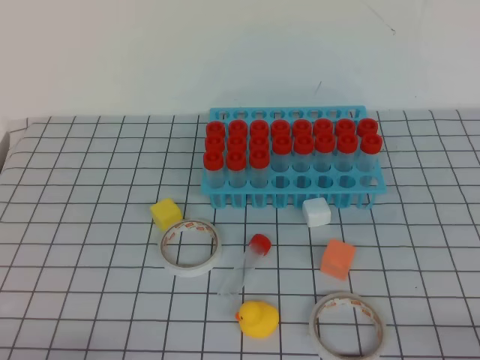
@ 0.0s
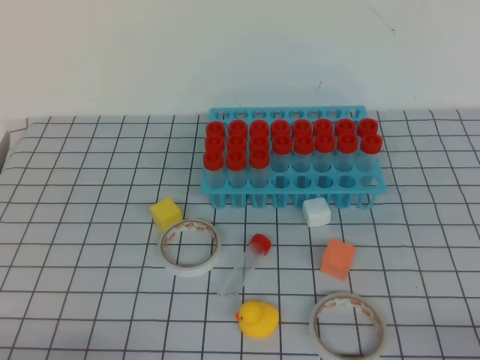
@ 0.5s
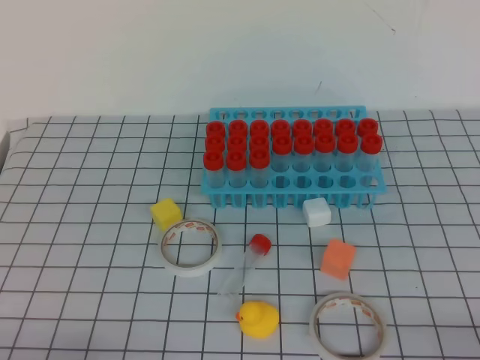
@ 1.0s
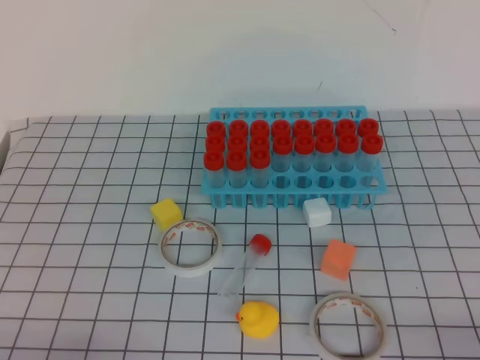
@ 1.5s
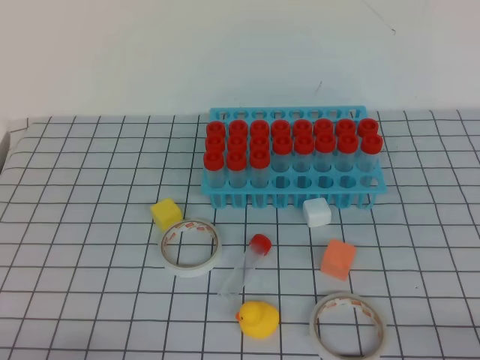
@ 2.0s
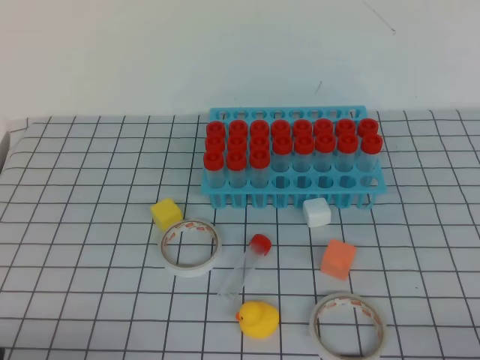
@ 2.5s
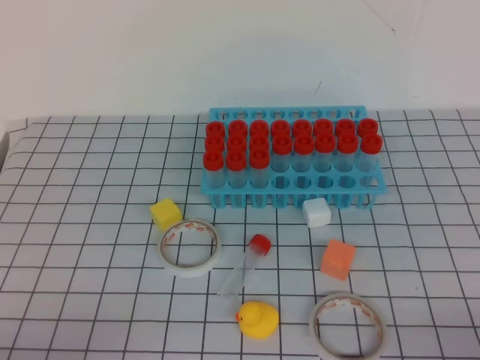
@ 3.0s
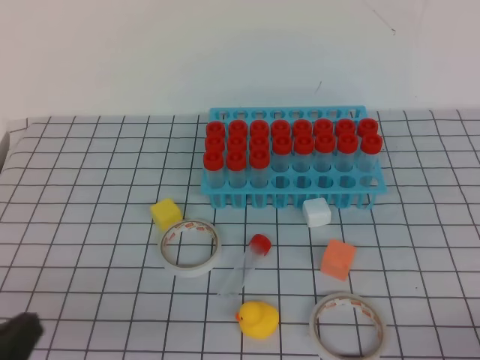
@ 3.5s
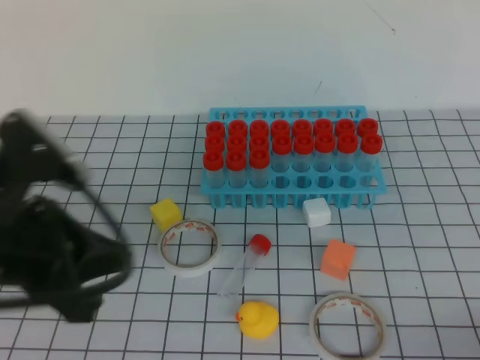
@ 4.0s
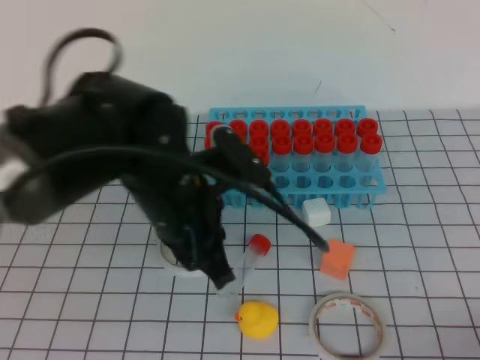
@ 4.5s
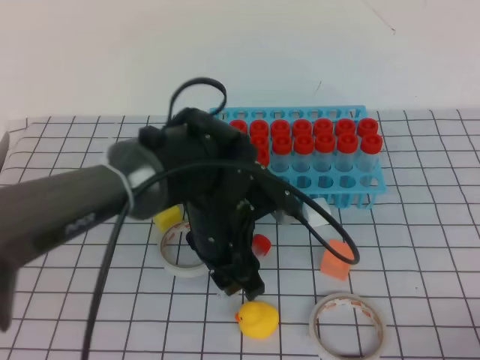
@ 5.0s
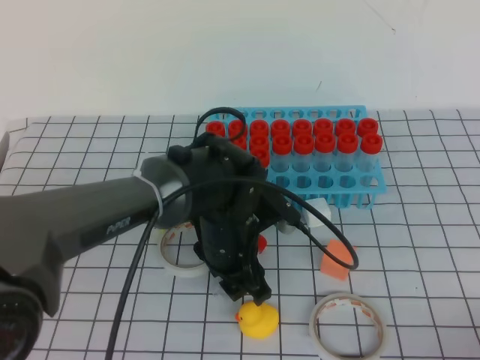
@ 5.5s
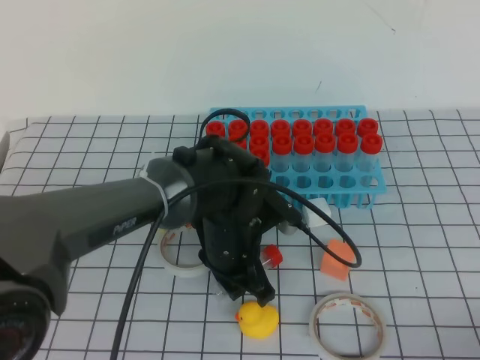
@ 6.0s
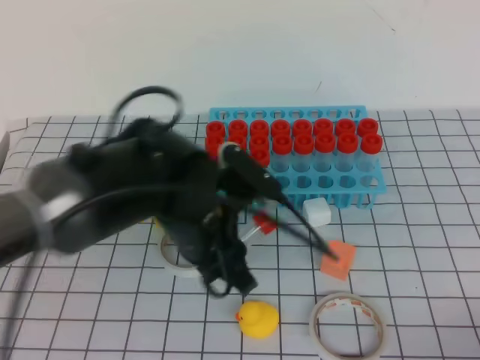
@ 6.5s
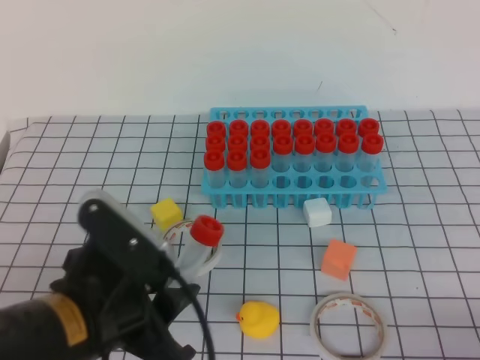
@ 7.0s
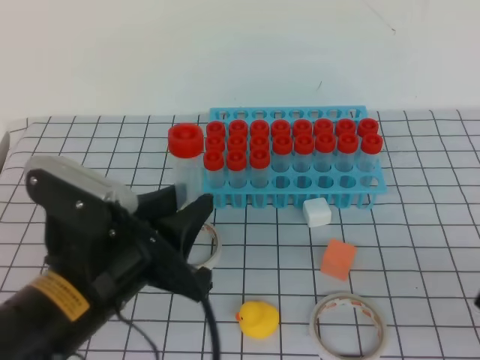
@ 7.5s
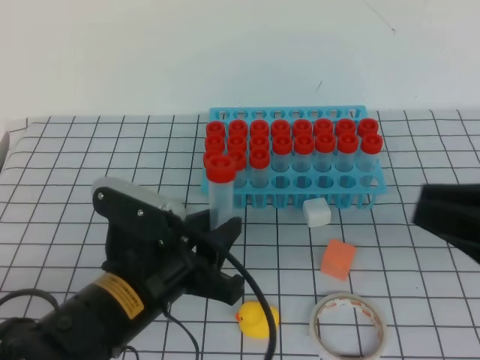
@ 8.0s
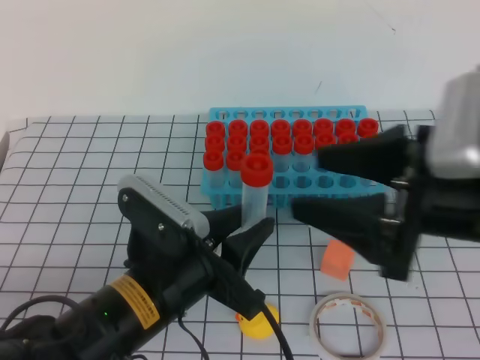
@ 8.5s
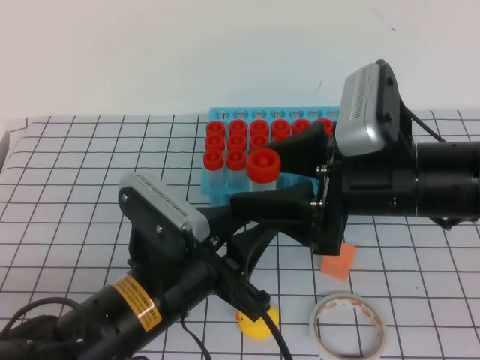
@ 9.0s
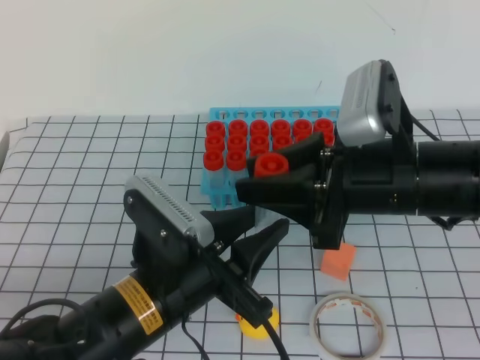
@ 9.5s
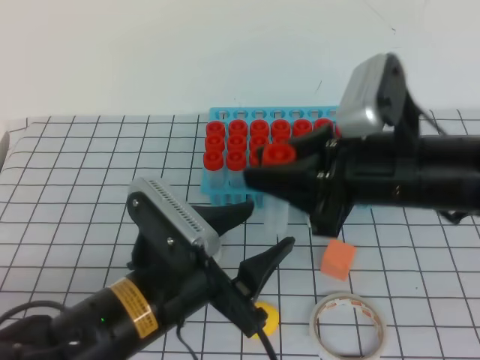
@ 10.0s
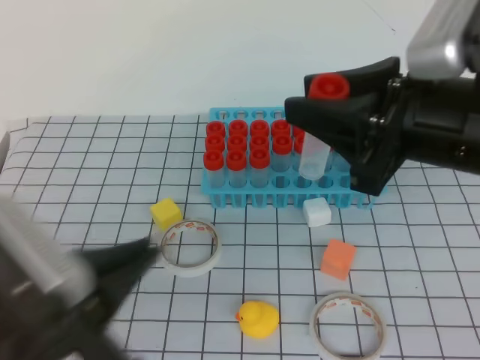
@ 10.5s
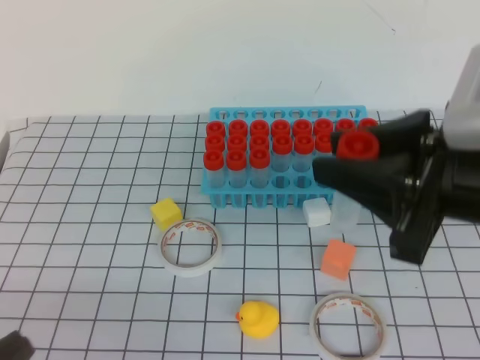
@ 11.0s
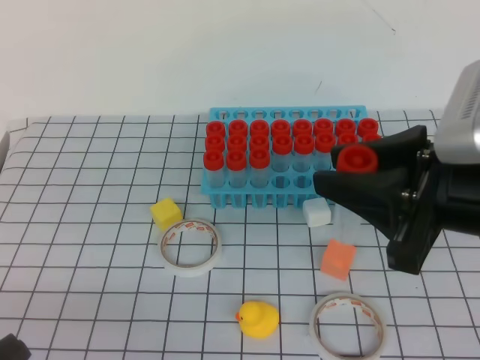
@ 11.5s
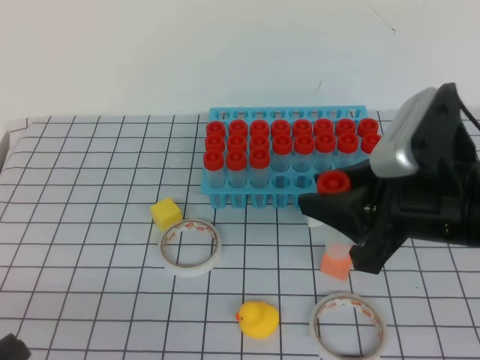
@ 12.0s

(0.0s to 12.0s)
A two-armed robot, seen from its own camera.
0.0s - 2.0s: Both grippers stay put.
2.0s - 4.0s: The left gripper goes roughly 20 cm upward, forward and to the right.
4.0s - 6.0s: The left gripper heads to the right, downward and forward, covering approximately 30 cm, and opens its fingers.
6.0s - 8.0s: The right gripper is displaced upward, forward and to the left by roughly 20 cm. The left gripper heads backward, to the left and upward, covering roughly 15 cm.
8.0s - 10.0s: The right gripper travels to the left and forward by some 15 cm, and opens, then closes once more, while the left gripper opens.
10.0s - 12.0s: The left gripper goes about 20 cm backward and to the left, and closes.

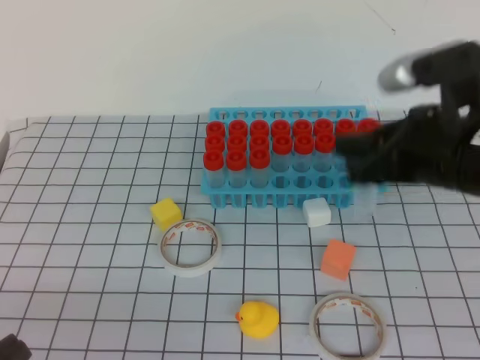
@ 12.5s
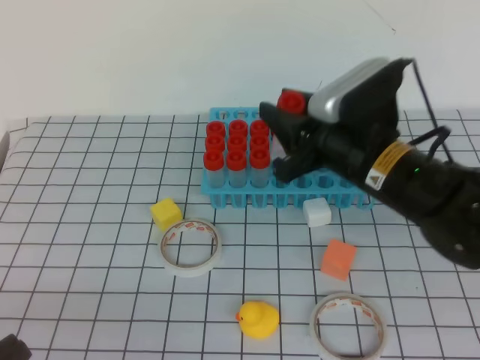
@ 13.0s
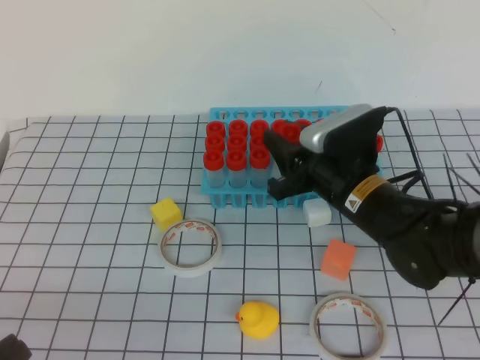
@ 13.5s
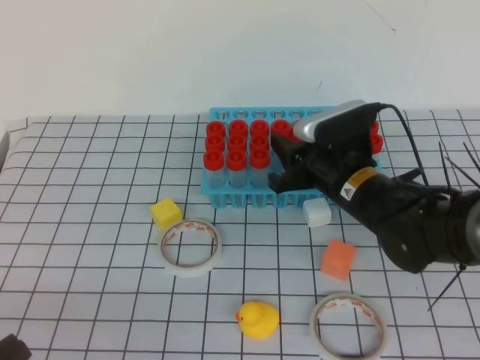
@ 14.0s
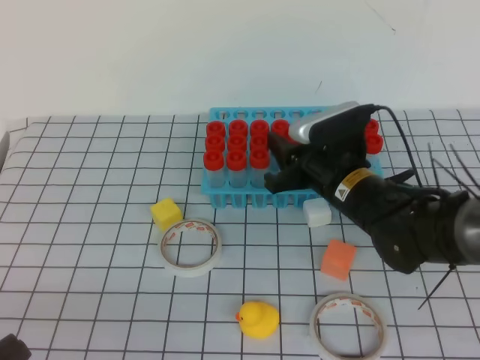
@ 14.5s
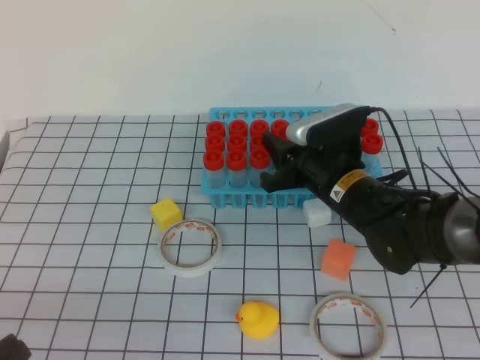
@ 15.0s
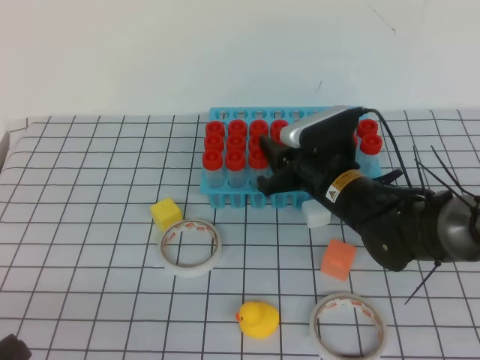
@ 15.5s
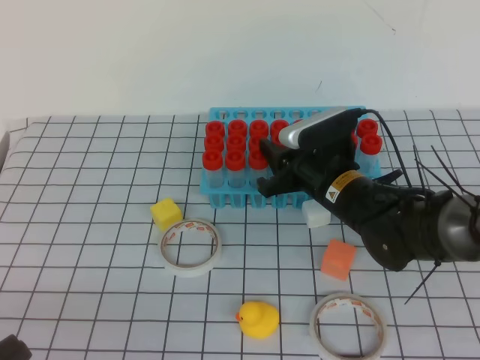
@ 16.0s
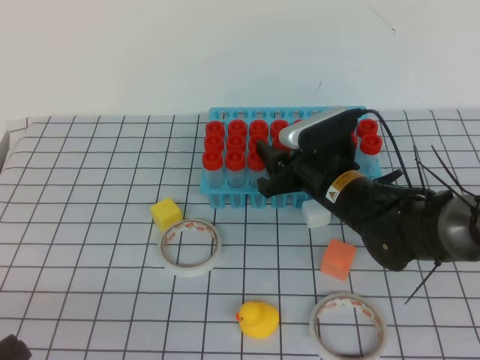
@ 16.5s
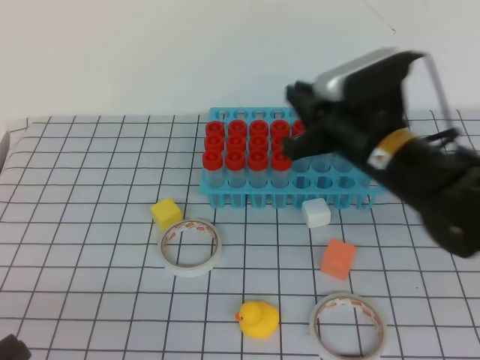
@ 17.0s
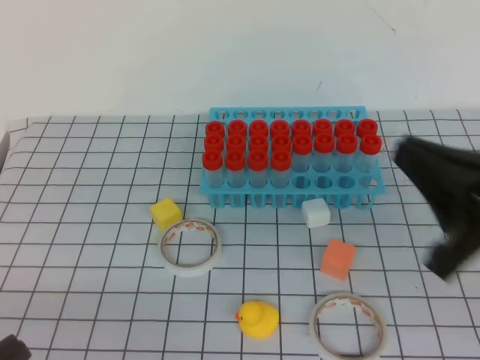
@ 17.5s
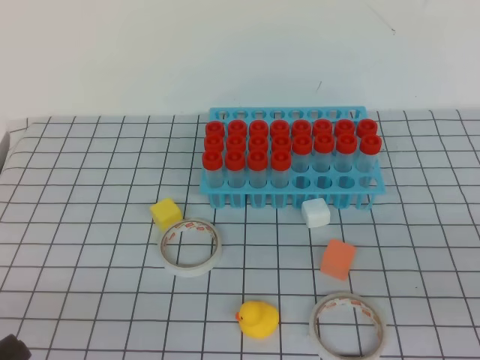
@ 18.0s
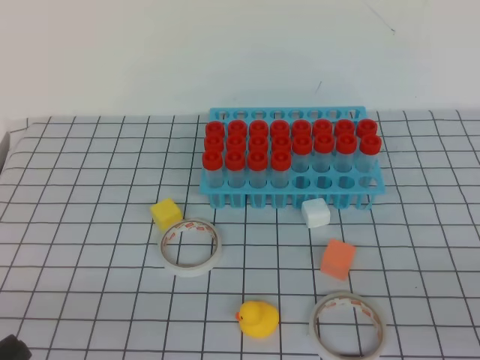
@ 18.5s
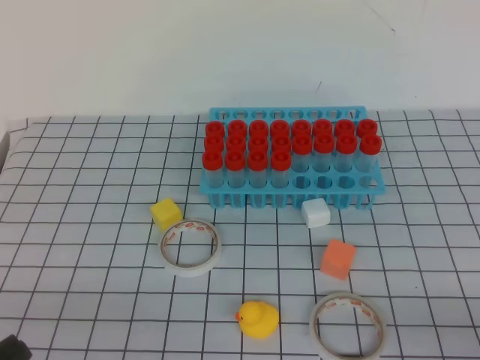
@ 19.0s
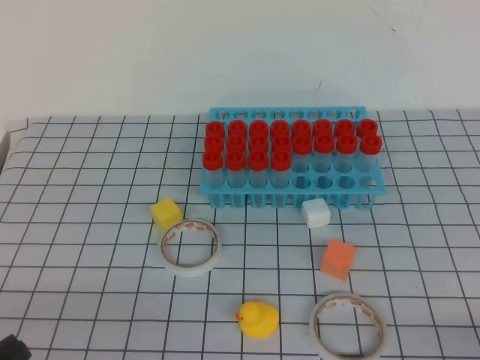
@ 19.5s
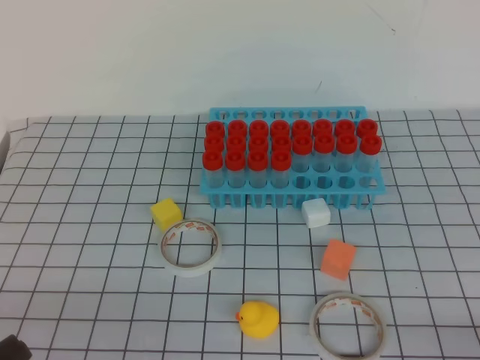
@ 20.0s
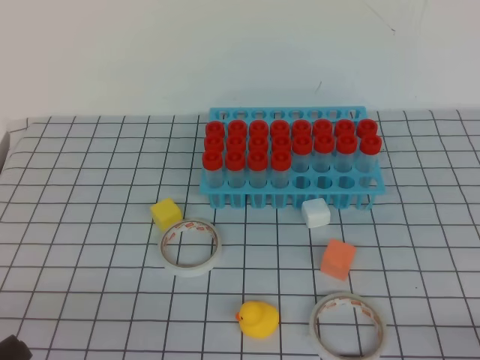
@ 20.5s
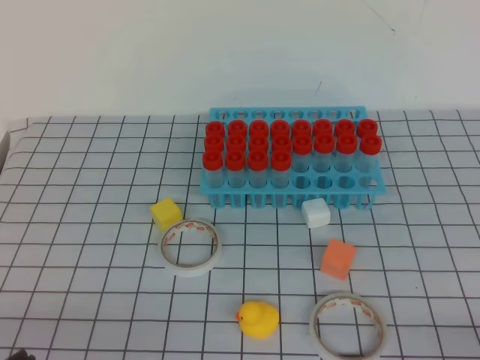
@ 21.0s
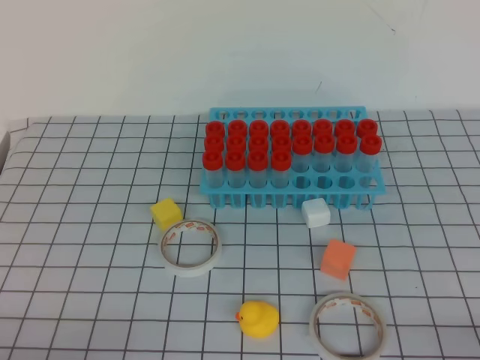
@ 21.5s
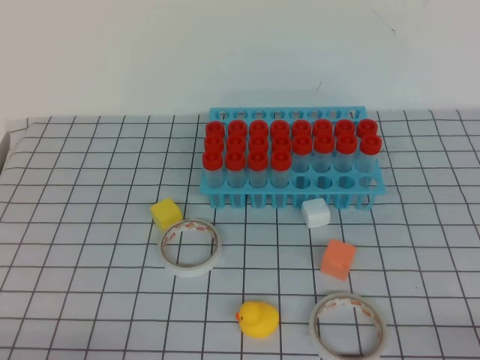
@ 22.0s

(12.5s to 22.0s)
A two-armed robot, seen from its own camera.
12.5s - 14.5s: The right gripper heads downward, forward and to the left, covering roughly 15 cm.
14.5s - 16.5s: The grippers stay close to where they were, moving slightly.
16.5s - 18.0s: The right gripper travels backward, to the right and upward by roughly 35 cm, and closes.
18.0s - 20.0s: The right gripper is displaced downward and to the right by about 15 cm.

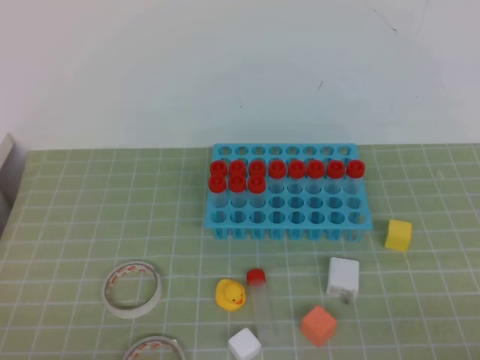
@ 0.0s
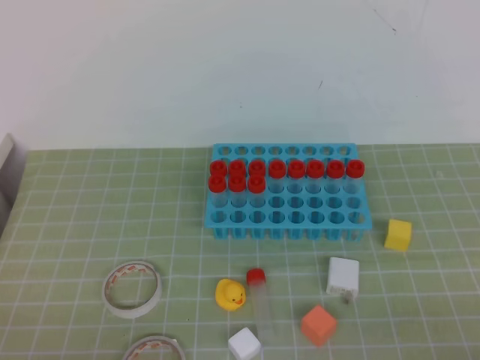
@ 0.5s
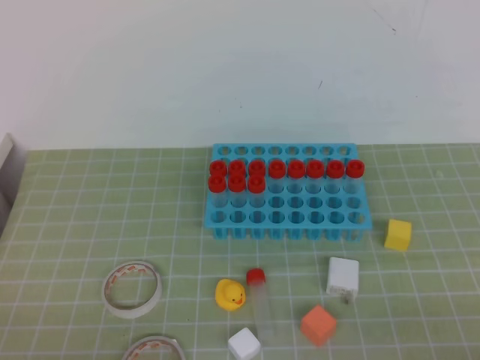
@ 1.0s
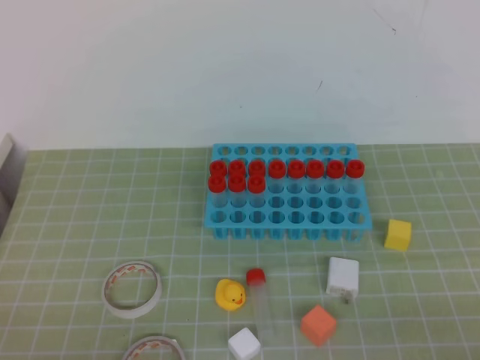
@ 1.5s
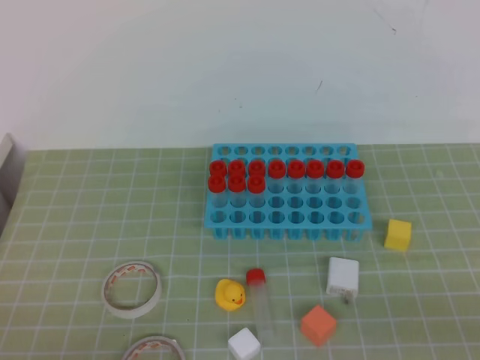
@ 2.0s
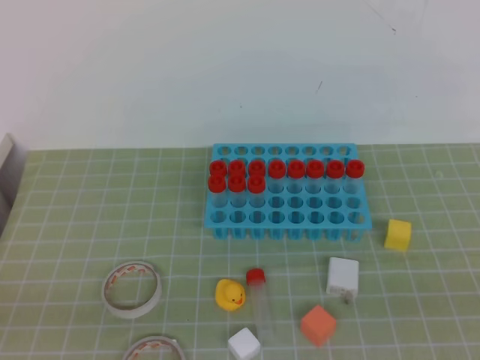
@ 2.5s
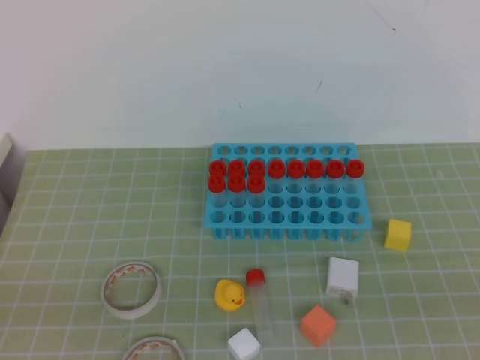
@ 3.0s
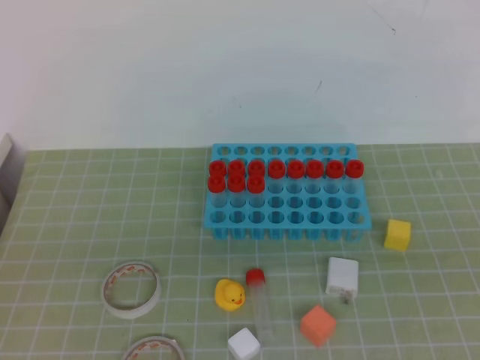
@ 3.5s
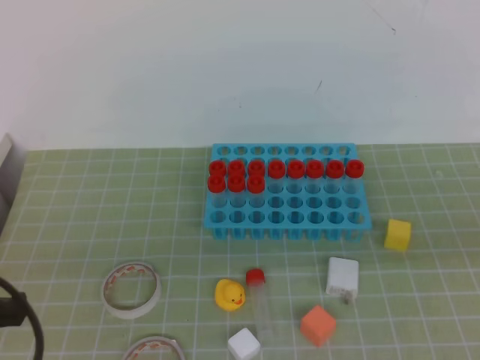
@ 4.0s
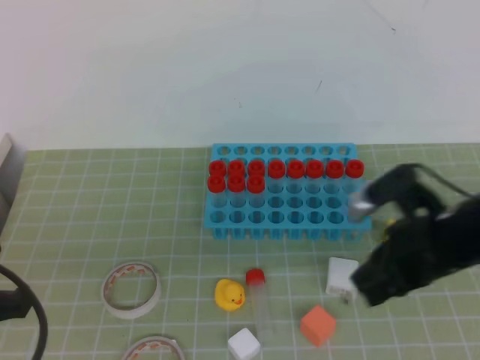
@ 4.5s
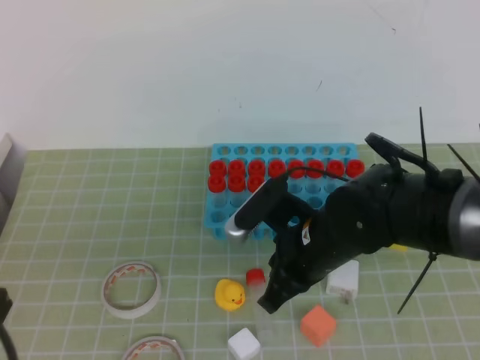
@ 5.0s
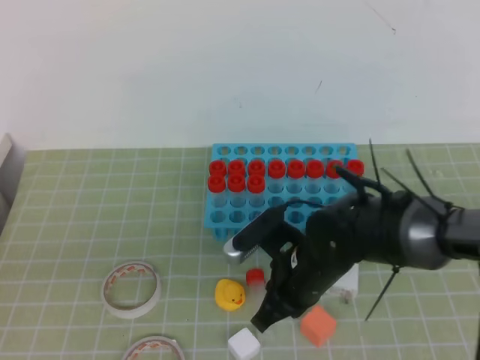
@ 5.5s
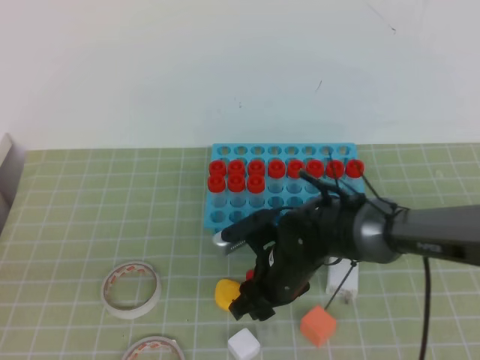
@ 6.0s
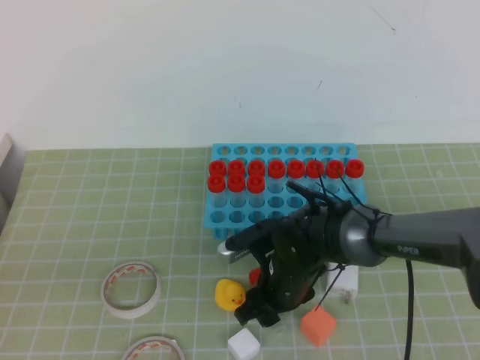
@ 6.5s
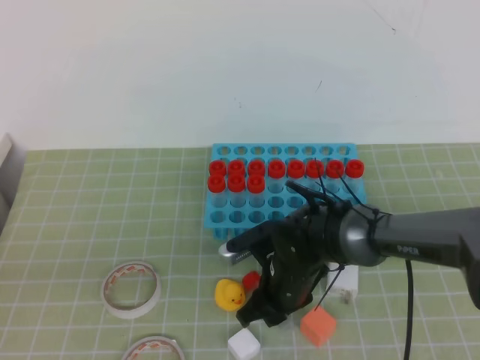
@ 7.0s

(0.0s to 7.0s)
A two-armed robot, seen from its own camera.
3.5s - 5.0s: The right gripper moves to the left, forward and downward, some 35 cm.
5.0s - 7.0s: The right gripper moves downward, about 10 cm, and opens.
